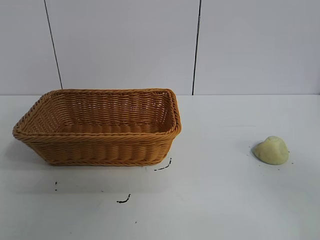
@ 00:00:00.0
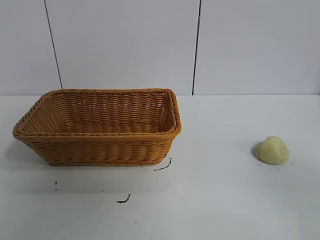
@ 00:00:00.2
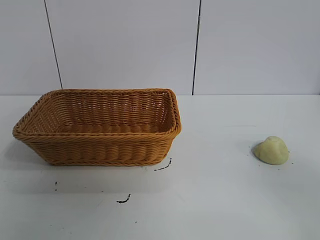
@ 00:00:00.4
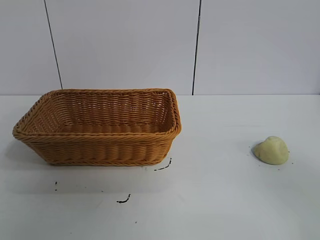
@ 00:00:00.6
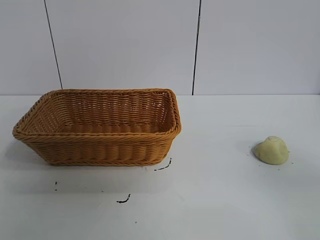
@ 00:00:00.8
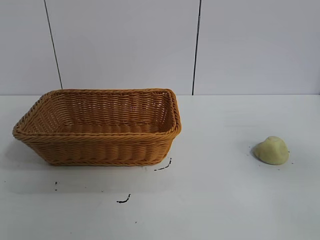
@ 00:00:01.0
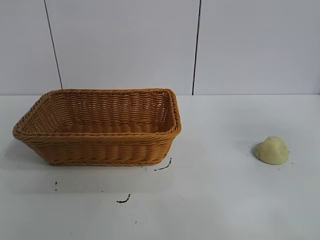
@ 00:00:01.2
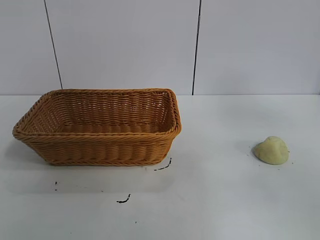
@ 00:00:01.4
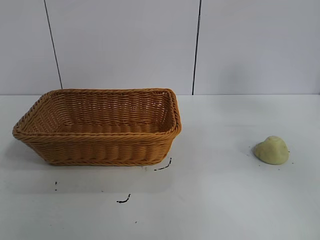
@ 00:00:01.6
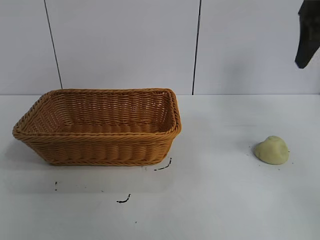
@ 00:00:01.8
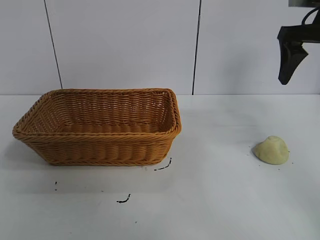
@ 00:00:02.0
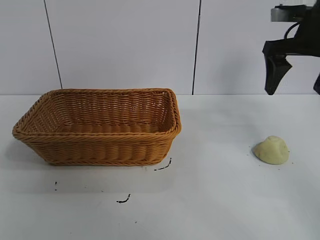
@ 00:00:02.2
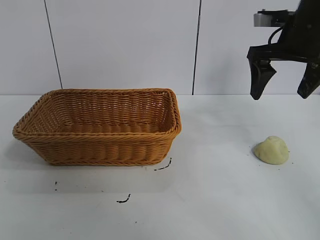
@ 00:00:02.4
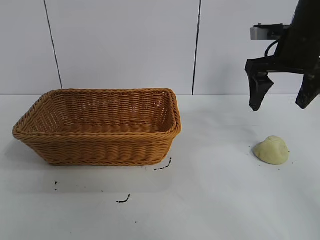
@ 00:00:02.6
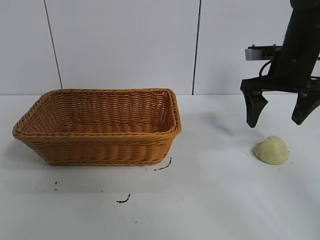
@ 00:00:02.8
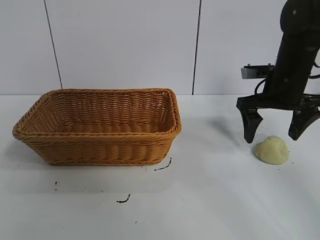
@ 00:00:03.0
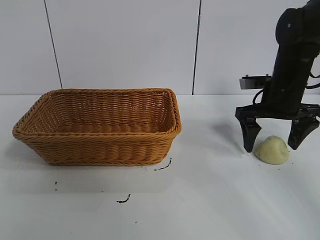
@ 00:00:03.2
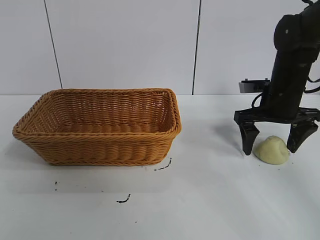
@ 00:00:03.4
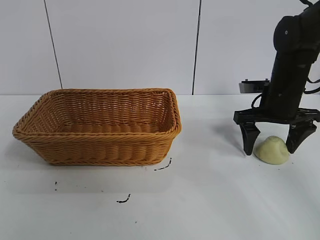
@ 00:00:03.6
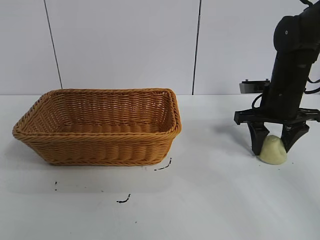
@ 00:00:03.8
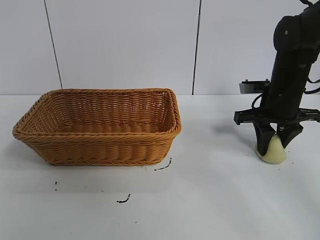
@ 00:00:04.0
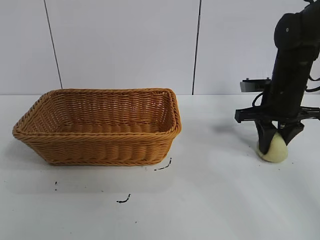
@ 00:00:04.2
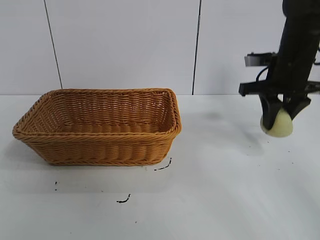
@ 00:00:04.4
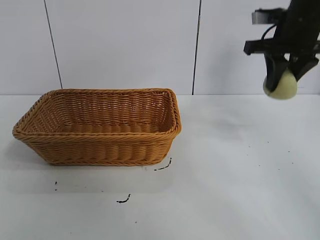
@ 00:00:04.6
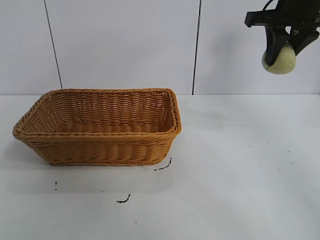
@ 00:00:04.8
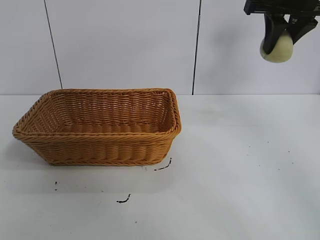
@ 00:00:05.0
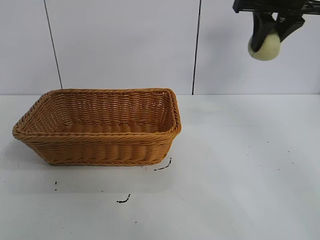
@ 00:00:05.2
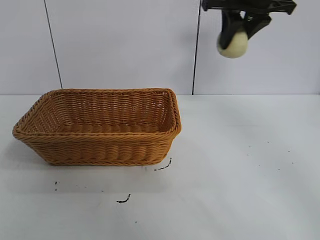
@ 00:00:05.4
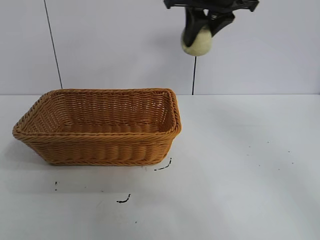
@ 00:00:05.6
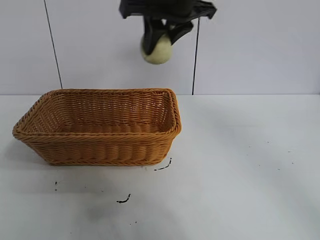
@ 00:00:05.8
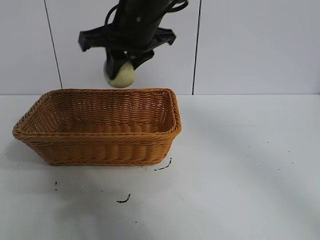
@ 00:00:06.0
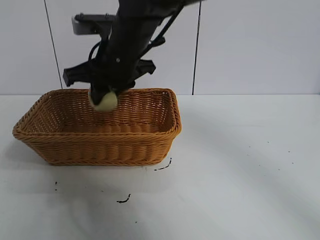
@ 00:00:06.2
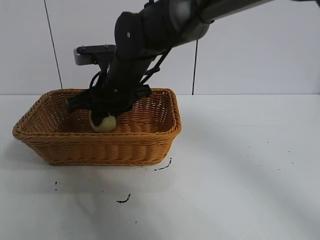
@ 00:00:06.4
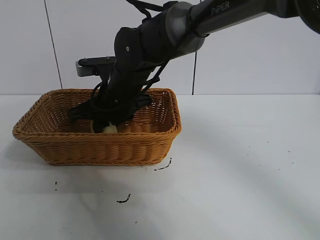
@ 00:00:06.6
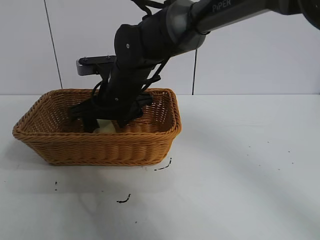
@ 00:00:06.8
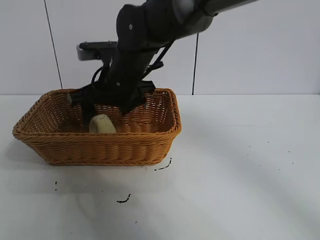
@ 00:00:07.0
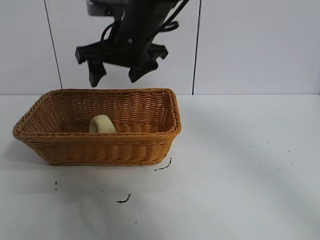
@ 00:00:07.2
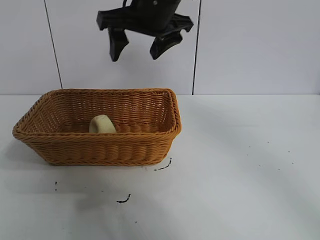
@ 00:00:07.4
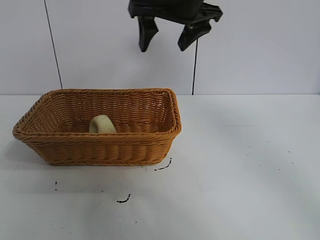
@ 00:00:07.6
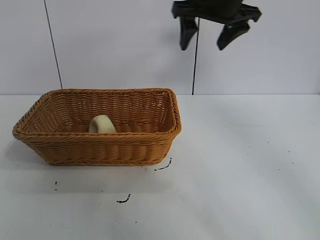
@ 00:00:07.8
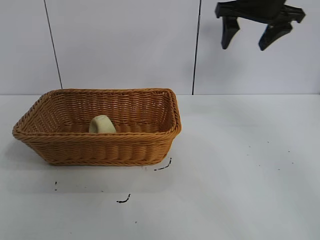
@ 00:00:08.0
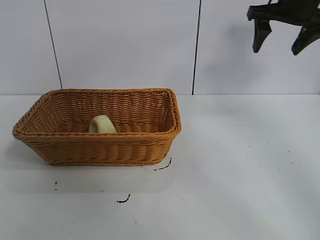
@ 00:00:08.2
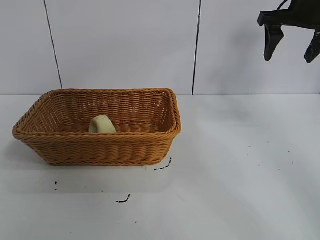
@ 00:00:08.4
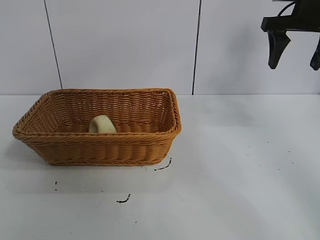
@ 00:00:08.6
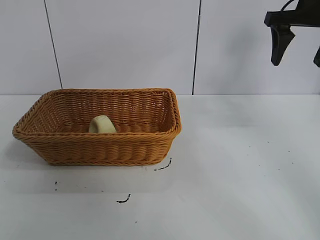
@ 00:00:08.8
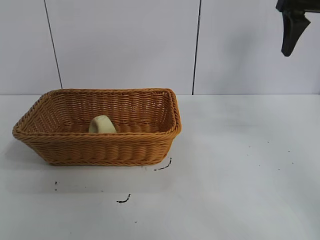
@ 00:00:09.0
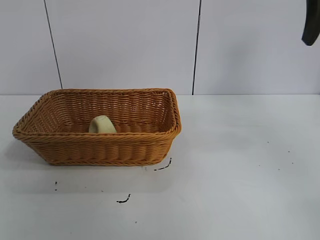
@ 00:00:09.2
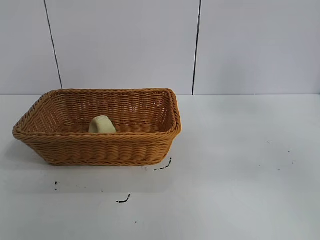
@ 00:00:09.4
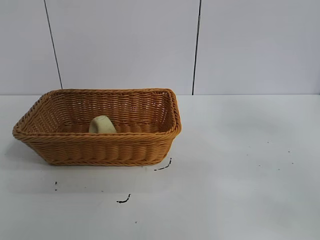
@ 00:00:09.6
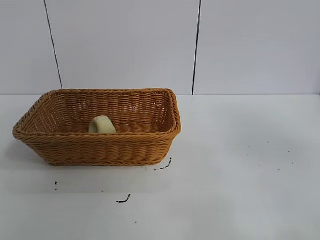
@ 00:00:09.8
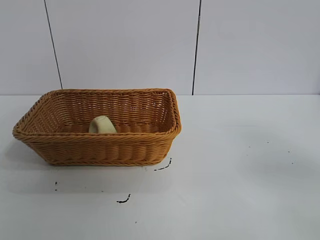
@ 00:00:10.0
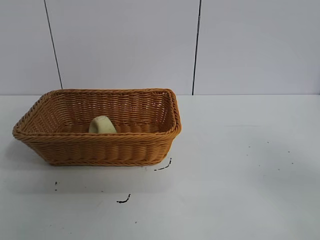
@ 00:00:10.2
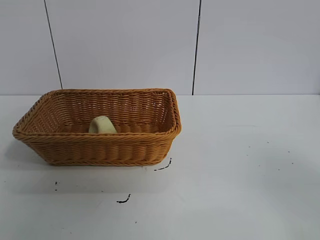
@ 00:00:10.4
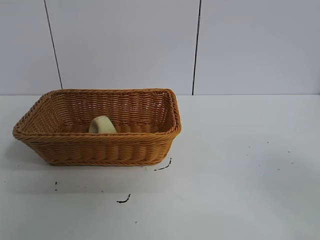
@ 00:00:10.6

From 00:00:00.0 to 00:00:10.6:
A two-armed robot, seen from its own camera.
Task of the whole recording: pick up the egg yolk pastry and put it into the basket.
Step, from 00:00:00.8 to 00:00:04.0: Grasp egg yolk pastry with right gripper.
Step, from 00:00:04.2 to 00:00:06.8: Place the egg yolk pastry in the basket with right gripper.

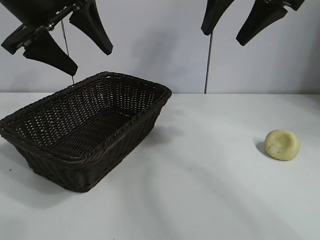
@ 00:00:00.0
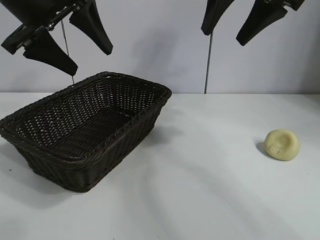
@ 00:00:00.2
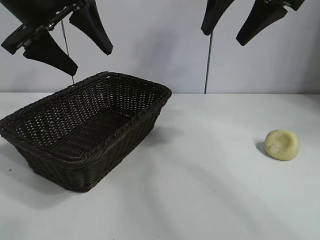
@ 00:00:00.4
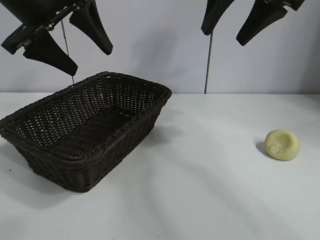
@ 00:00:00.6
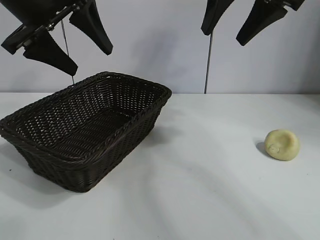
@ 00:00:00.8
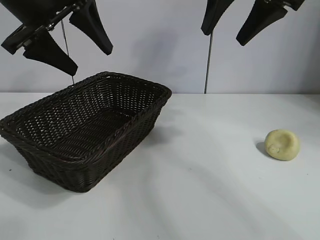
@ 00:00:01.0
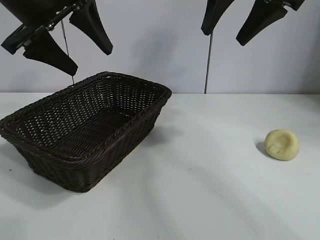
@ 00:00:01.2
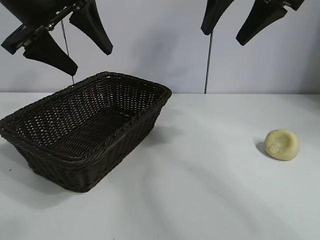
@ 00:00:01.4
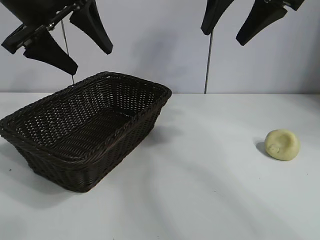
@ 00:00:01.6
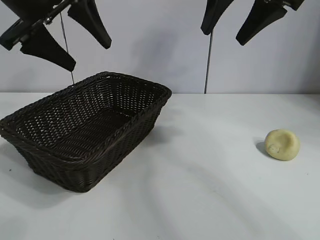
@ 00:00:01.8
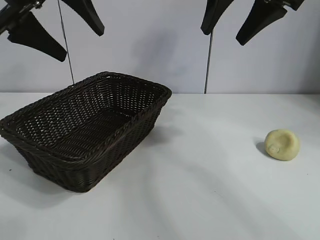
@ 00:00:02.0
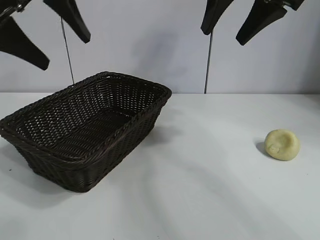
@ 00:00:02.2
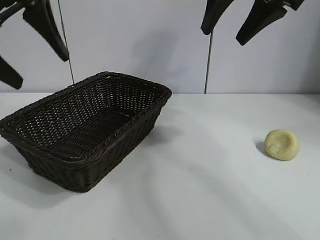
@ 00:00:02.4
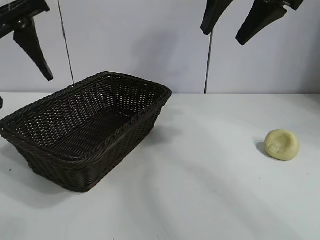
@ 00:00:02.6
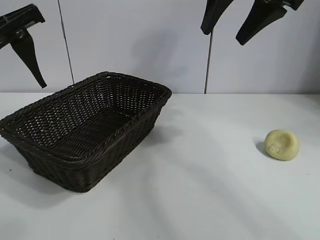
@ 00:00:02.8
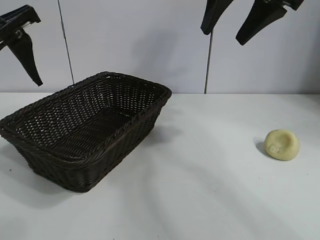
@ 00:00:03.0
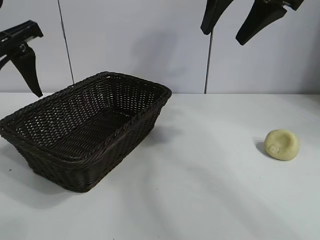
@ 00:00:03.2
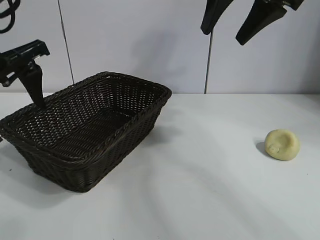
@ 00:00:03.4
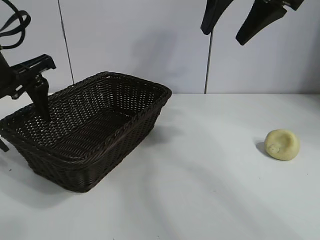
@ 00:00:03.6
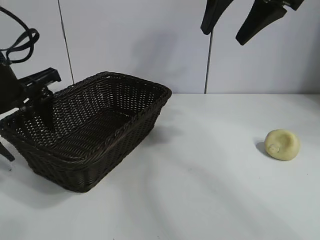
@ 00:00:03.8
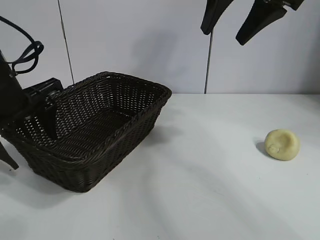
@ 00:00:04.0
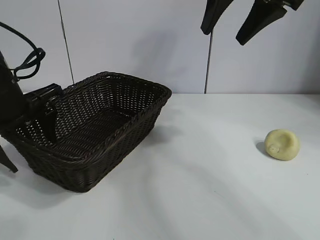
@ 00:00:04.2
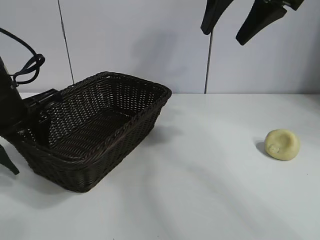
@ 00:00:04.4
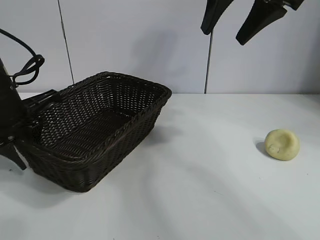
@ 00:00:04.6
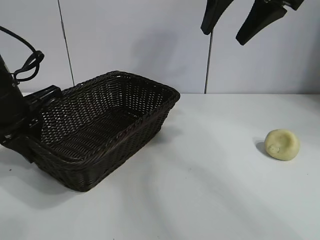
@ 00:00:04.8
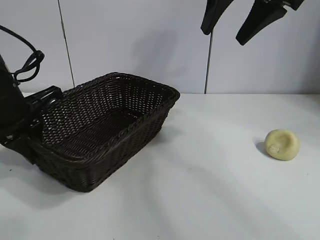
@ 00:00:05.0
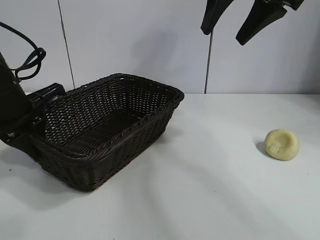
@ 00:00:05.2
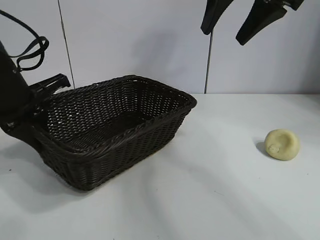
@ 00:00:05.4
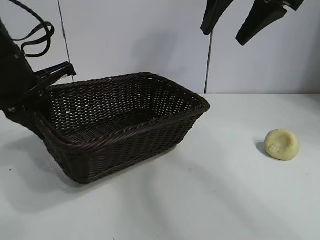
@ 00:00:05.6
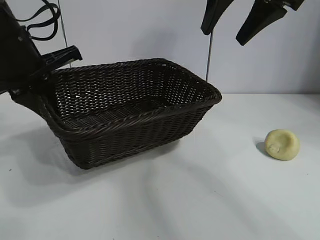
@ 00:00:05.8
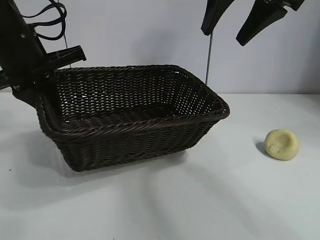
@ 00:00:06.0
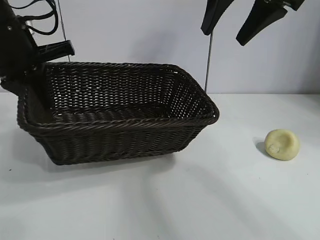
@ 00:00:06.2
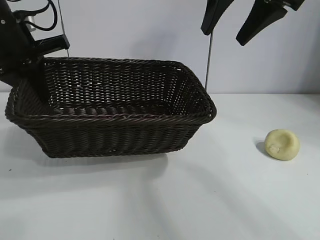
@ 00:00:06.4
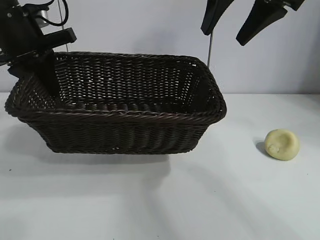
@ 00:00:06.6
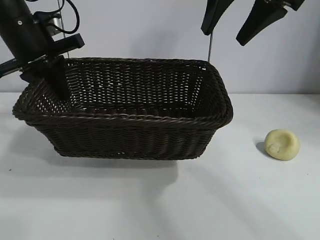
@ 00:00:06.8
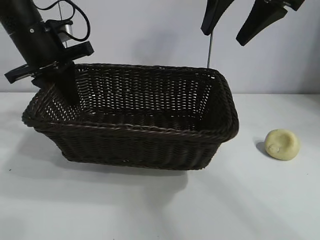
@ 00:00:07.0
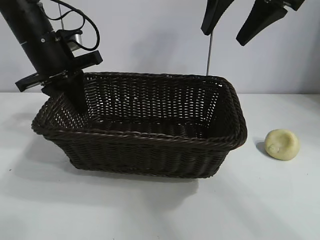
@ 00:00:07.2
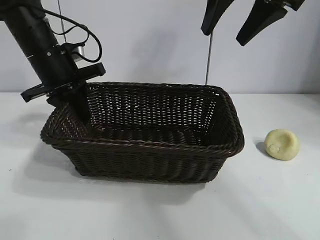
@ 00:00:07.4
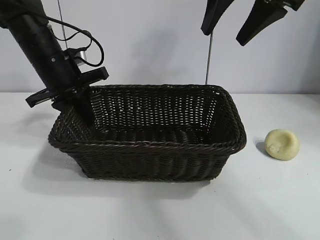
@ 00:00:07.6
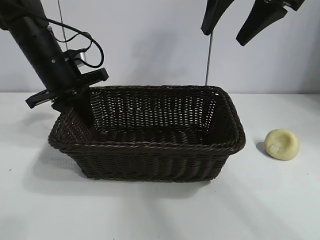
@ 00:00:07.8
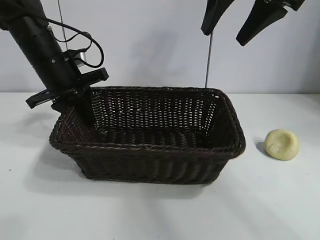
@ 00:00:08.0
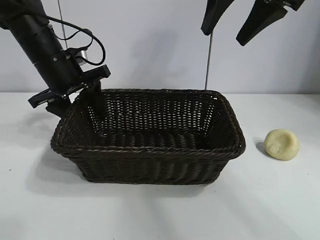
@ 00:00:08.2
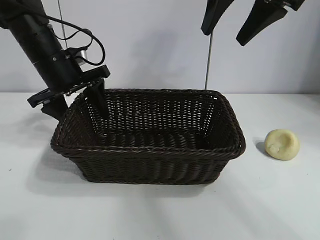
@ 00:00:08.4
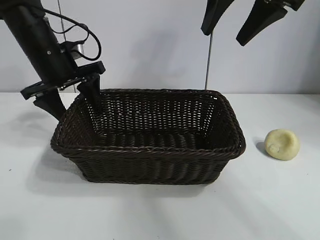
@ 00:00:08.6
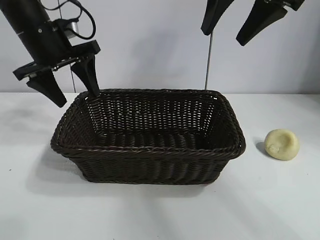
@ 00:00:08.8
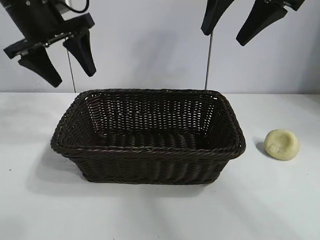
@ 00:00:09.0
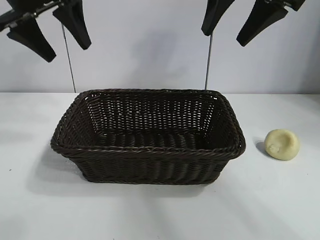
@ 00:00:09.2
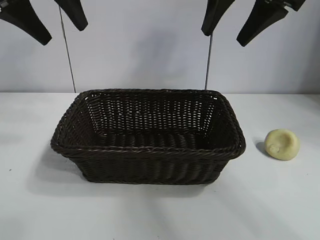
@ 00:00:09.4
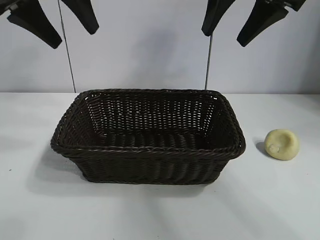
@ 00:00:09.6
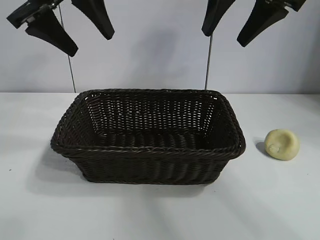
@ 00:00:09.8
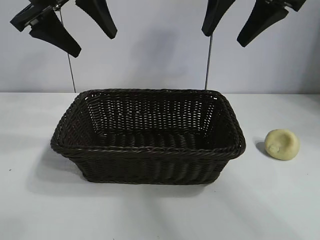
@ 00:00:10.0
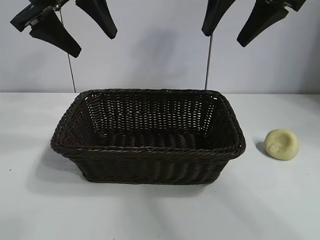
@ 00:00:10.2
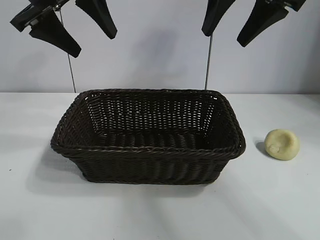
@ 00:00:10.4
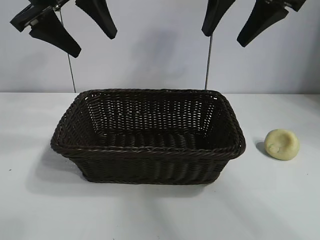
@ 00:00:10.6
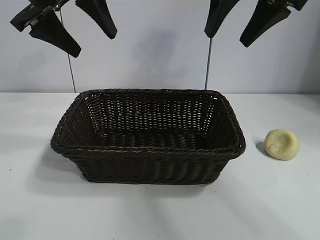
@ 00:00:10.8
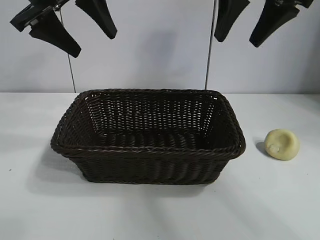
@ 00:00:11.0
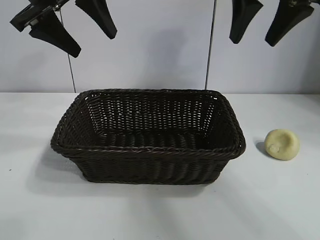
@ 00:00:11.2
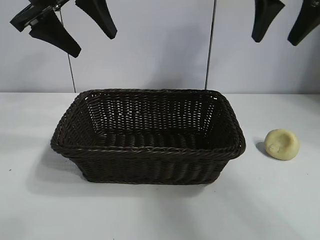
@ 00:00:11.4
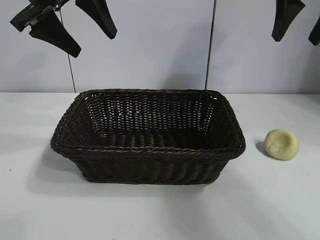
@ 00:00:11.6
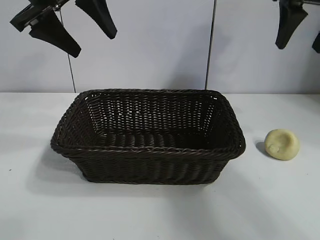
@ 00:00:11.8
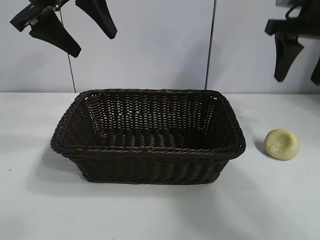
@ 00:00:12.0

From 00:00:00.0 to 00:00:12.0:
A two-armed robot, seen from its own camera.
Task of the whole recording: pick up the egg yolk pastry and put it into the basket.
Step, from 00:00:01.6 to 00:00:04.6: Grasp the basket with left gripper.
Step, from 00:00:04.8 to 00:00:08.2: Place the basket in the center of view with left gripper.
